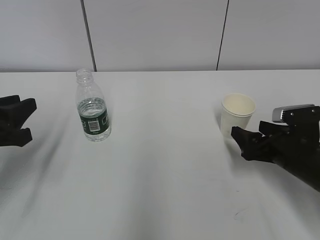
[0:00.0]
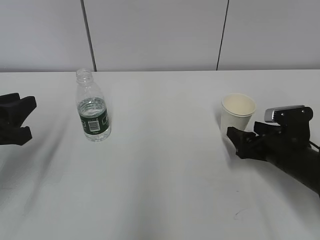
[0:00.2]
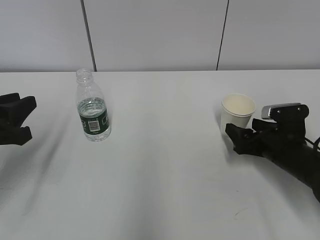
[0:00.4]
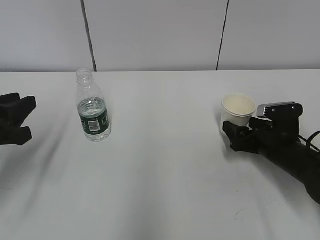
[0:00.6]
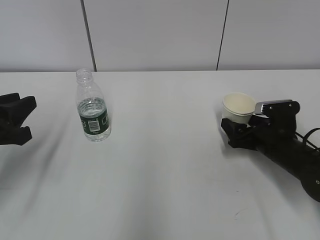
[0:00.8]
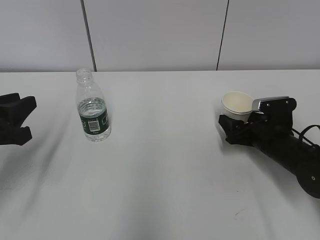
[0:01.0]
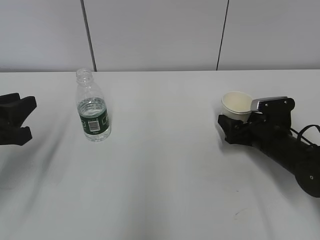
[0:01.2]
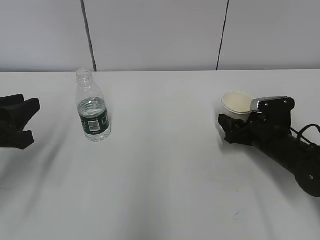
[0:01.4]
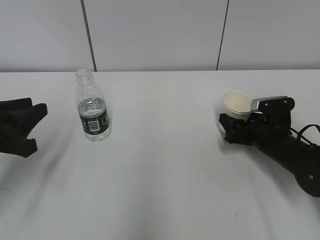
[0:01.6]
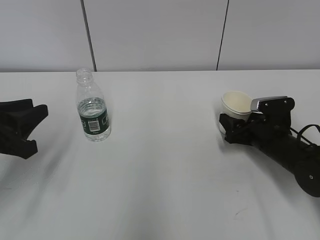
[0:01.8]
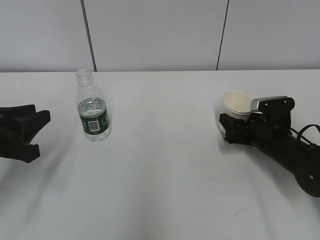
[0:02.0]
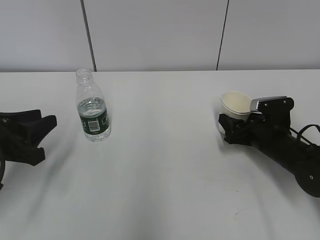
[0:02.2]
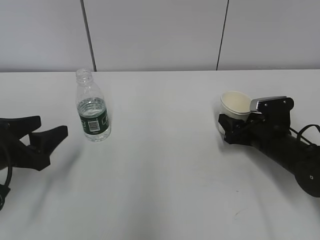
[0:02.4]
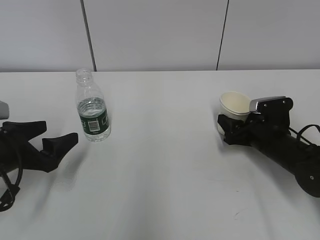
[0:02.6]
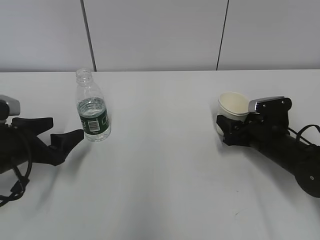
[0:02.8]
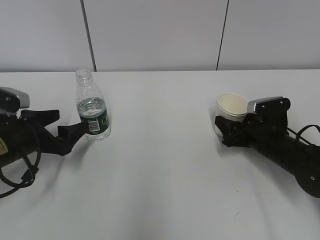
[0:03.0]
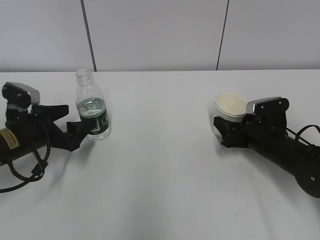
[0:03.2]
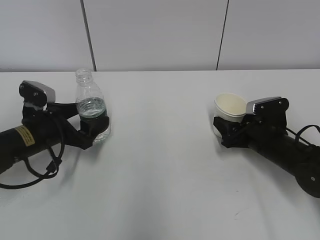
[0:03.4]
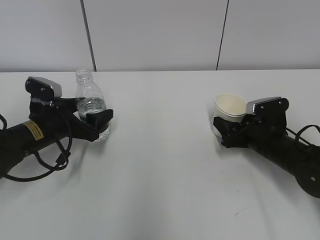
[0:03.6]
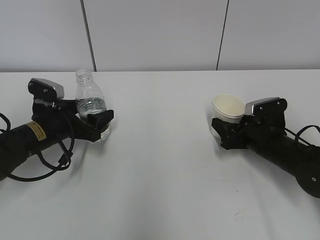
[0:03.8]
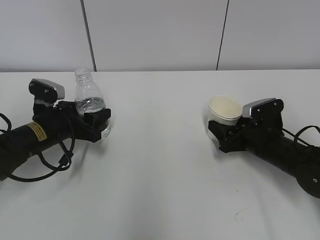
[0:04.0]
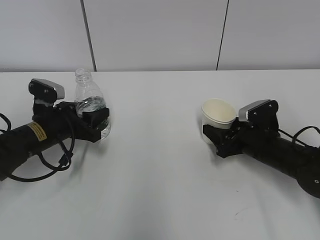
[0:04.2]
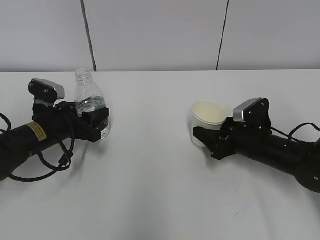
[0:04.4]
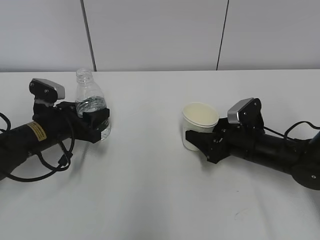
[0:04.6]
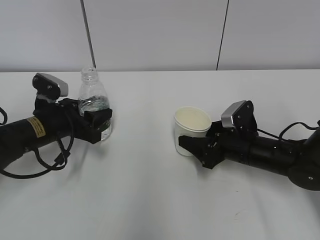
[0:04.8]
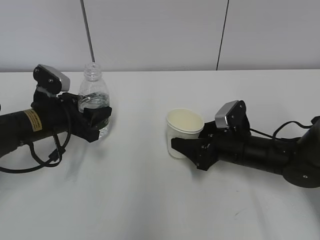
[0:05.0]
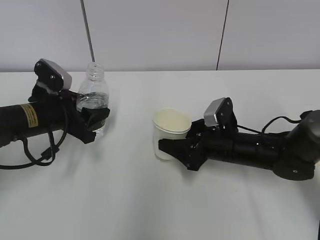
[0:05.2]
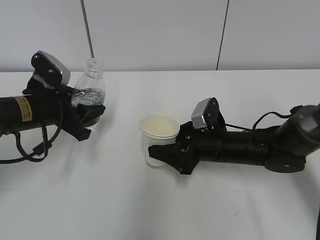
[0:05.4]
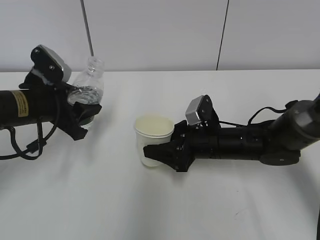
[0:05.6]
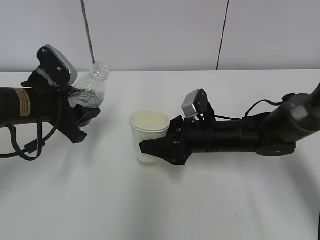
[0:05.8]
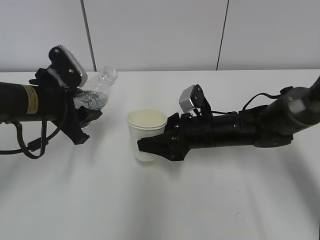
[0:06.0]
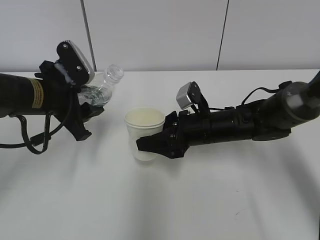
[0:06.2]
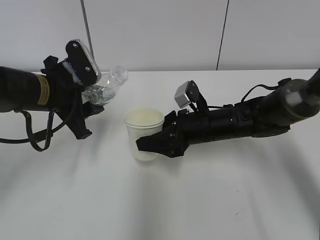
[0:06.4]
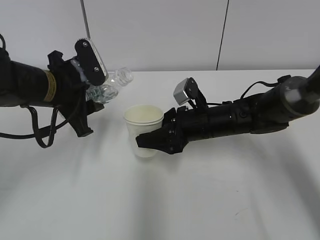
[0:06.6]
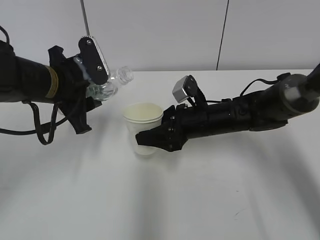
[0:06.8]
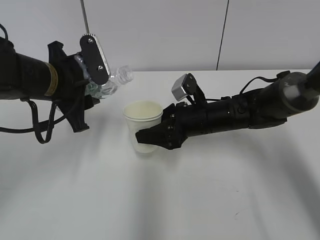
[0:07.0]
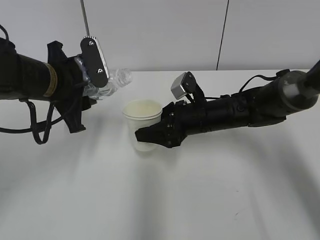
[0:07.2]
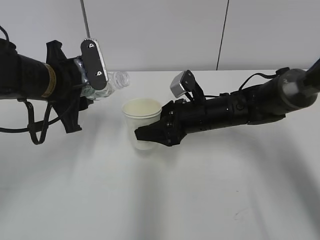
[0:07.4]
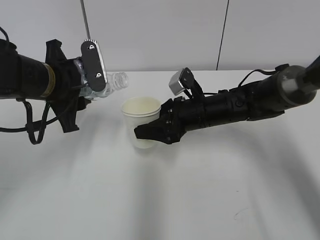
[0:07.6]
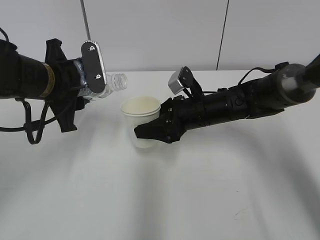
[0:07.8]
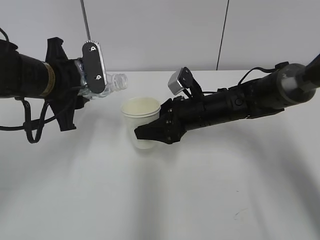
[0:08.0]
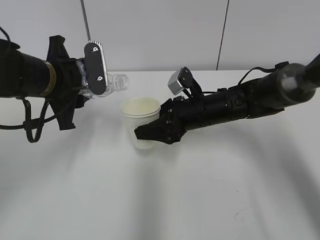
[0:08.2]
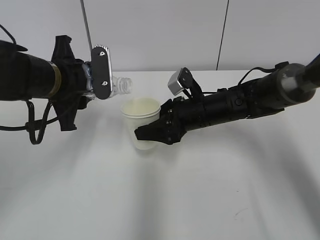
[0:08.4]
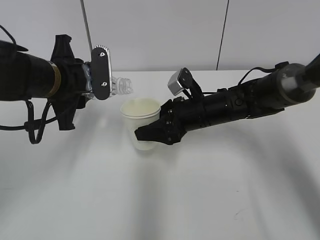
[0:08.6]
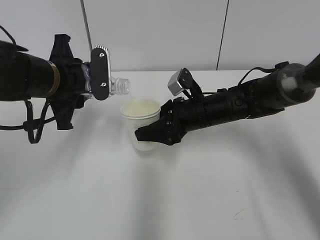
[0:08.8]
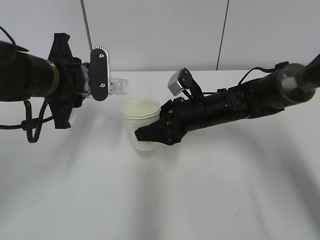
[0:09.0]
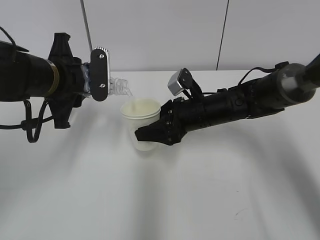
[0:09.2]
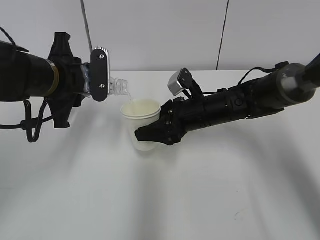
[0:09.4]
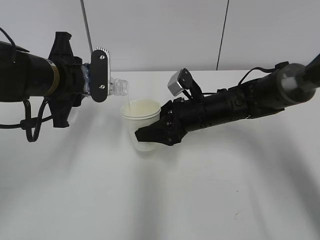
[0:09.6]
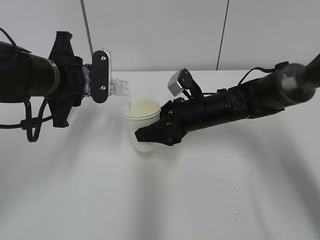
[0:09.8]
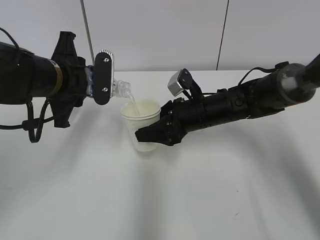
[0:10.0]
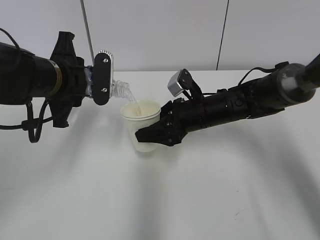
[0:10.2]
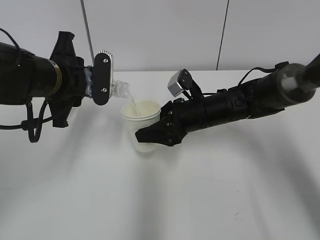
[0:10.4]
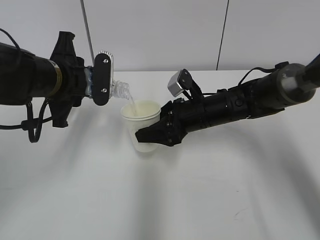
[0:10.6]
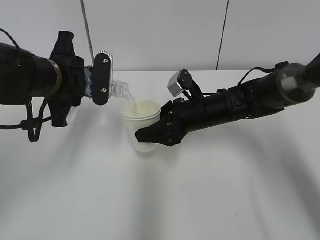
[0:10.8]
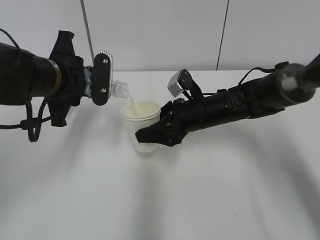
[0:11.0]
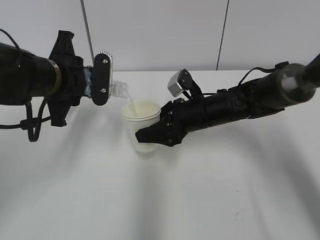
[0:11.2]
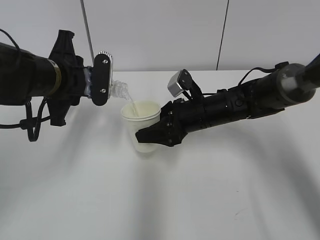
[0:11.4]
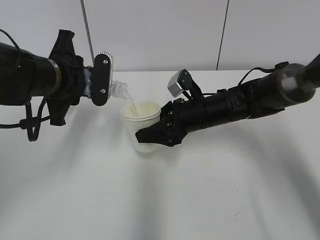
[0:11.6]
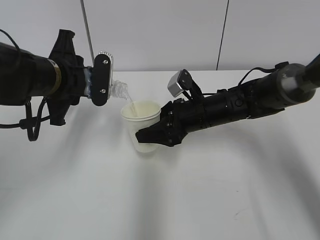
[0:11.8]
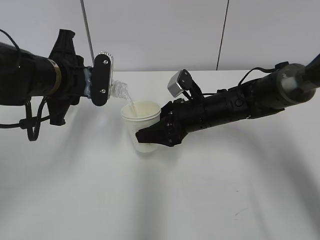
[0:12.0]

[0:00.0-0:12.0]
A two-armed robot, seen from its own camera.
Step, 0:00.6 to 0:02.6: Grab the water bottle with the left hand.
Step, 0:02.8 to 0:06.2: Lift the paper cup with the right hand.
Step, 0:06.4 to 0:10.6: Fill water with the right hand.
Step, 0:06.4 to 0:10.6: Pour water with the left hand.
0:00.0 to 0:01.6: The right gripper goes some 5 cm forward, and closes up.
0:01.6 to 0:03.0: The left gripper heads forward and downward, covering roughly 10 cm, and opens up.
0:03.0 to 0:04.4: The left gripper ends up approximately 5 cm from where it was, and closes up.
0:04.4 to 0:06.0: The left gripper travels upward by some 10 cm. The right gripper is displaced to the left by some 10 cm.
0:07.6 to 0:10.4: The grippers stay close to where they were, moving slightly.
0:10.4 to 0:12.0: Both grippers stay about where they are.

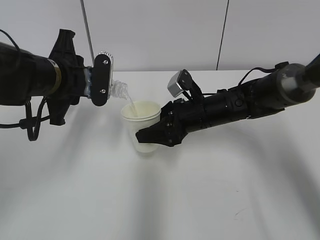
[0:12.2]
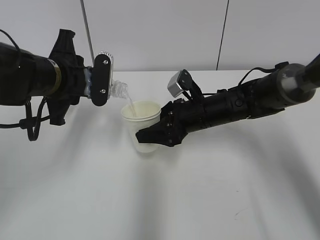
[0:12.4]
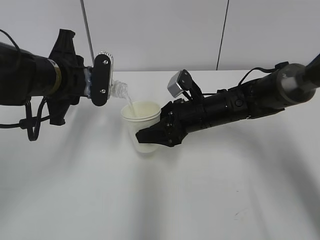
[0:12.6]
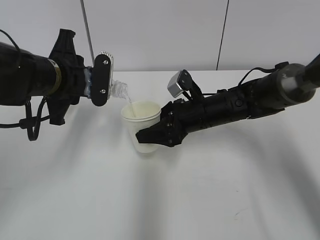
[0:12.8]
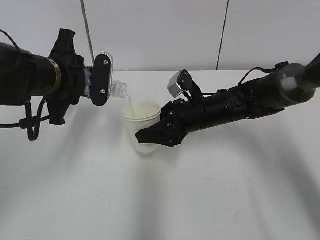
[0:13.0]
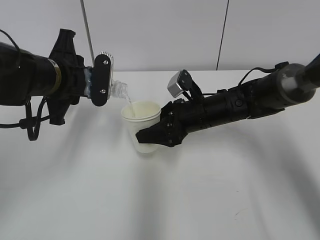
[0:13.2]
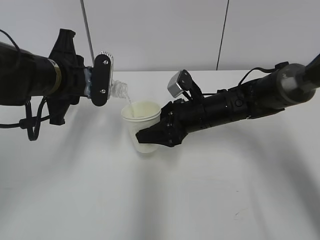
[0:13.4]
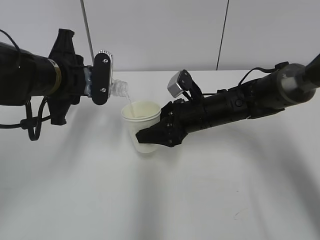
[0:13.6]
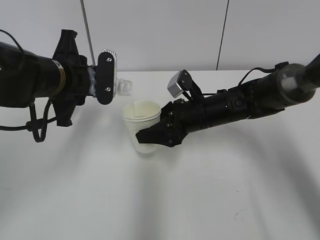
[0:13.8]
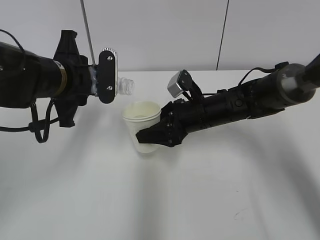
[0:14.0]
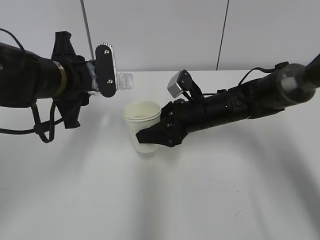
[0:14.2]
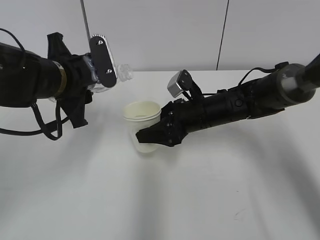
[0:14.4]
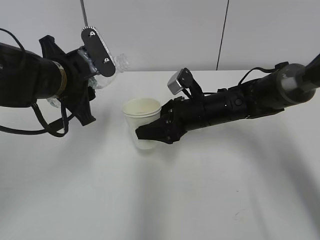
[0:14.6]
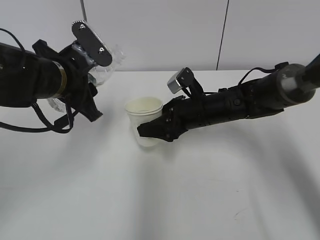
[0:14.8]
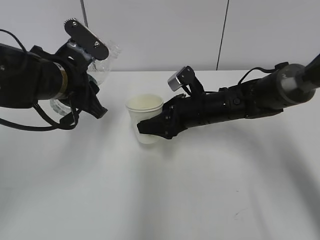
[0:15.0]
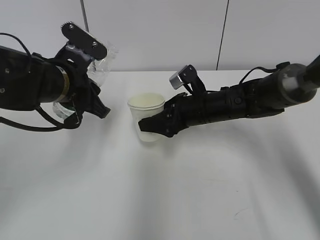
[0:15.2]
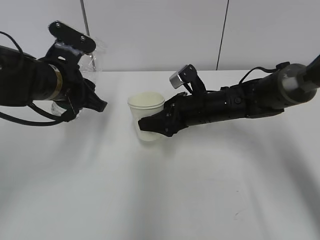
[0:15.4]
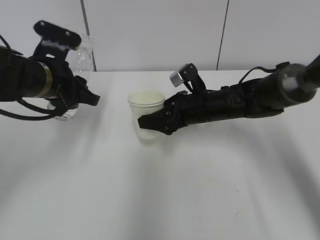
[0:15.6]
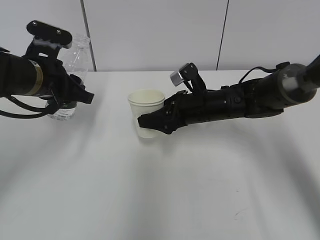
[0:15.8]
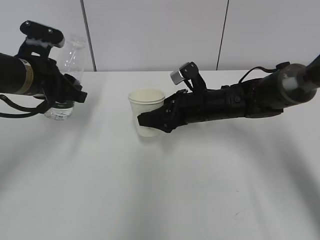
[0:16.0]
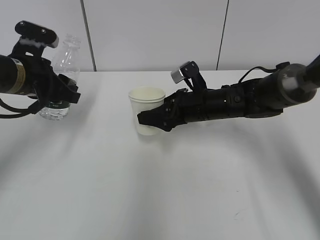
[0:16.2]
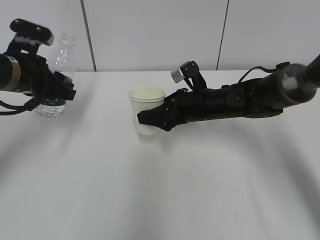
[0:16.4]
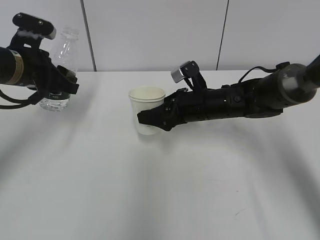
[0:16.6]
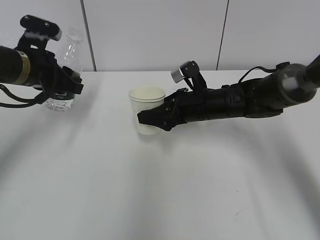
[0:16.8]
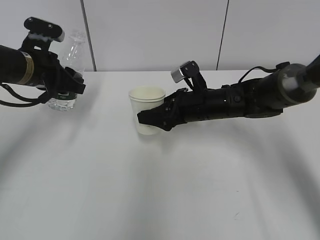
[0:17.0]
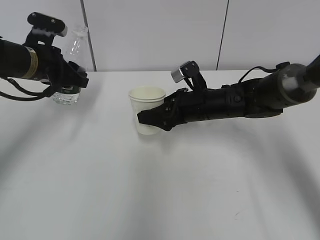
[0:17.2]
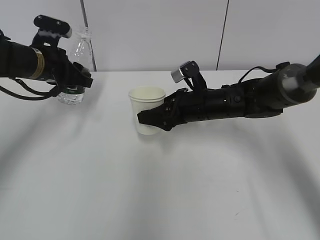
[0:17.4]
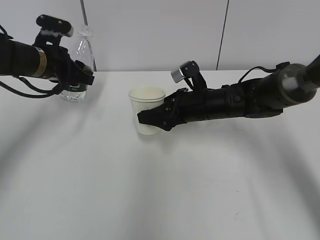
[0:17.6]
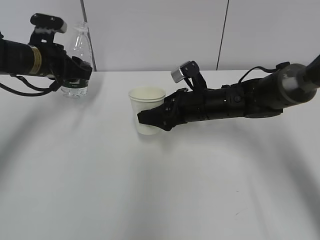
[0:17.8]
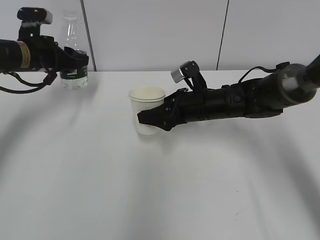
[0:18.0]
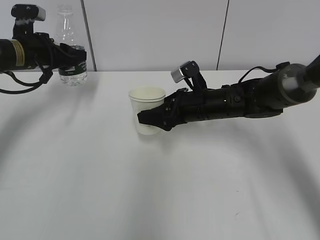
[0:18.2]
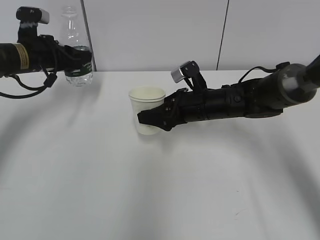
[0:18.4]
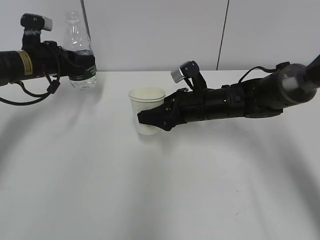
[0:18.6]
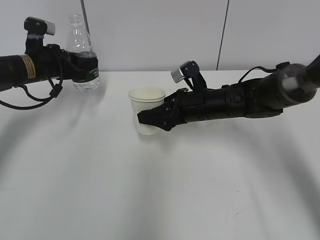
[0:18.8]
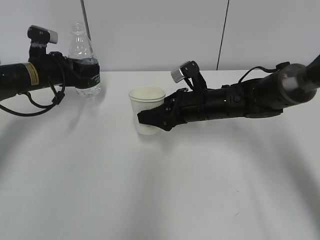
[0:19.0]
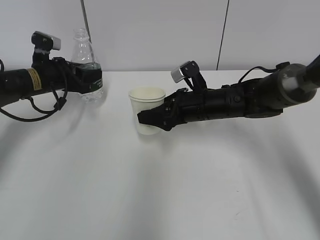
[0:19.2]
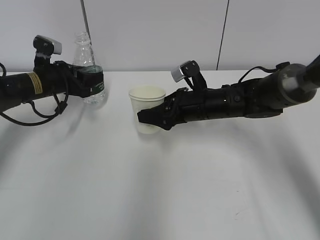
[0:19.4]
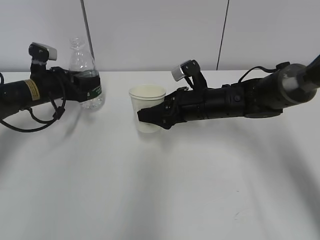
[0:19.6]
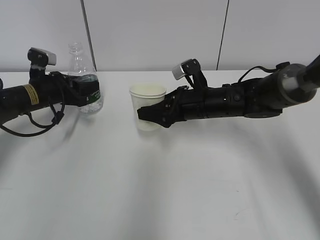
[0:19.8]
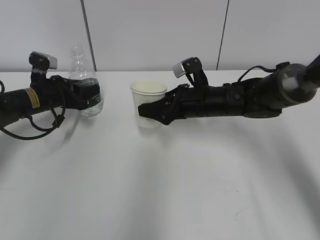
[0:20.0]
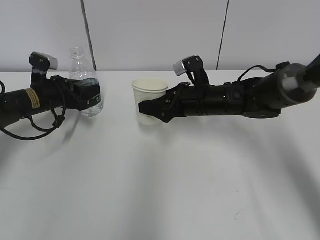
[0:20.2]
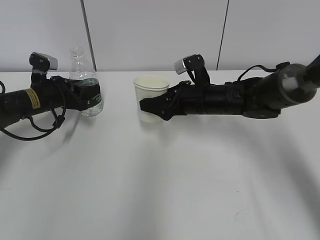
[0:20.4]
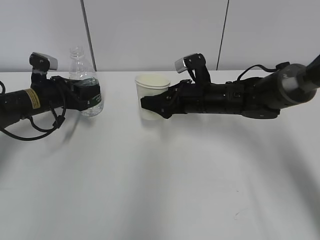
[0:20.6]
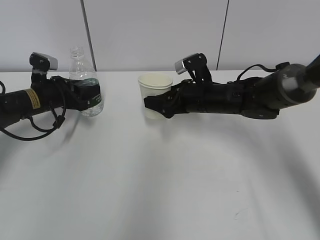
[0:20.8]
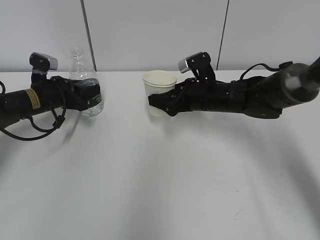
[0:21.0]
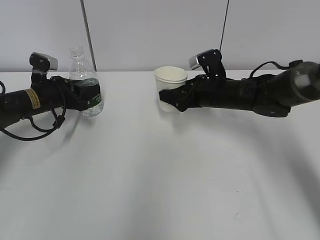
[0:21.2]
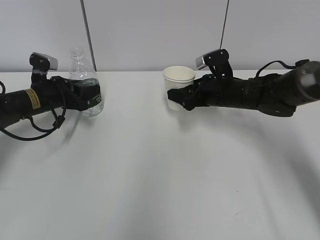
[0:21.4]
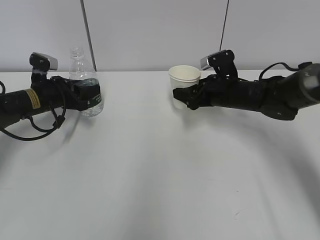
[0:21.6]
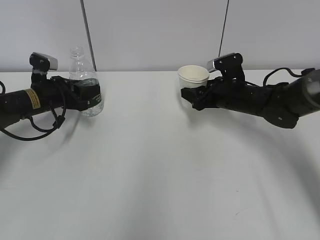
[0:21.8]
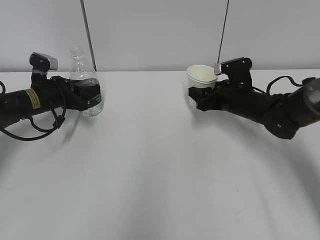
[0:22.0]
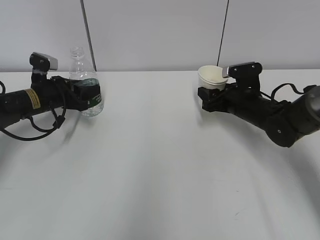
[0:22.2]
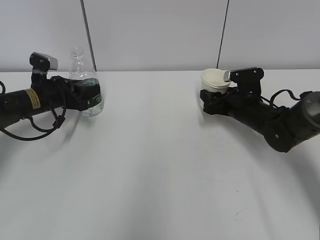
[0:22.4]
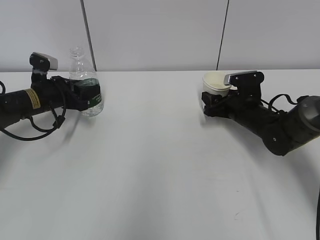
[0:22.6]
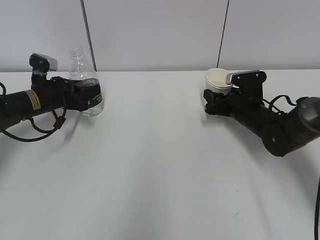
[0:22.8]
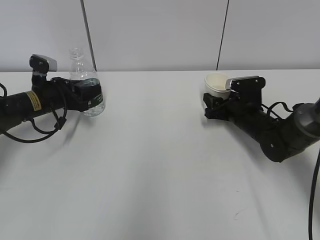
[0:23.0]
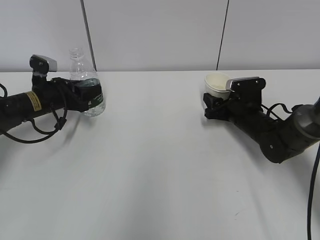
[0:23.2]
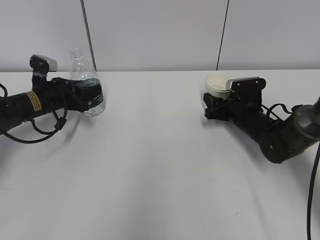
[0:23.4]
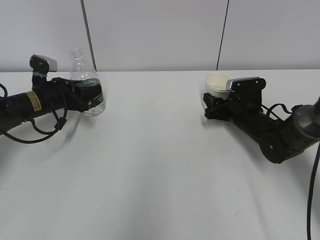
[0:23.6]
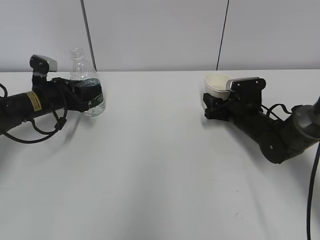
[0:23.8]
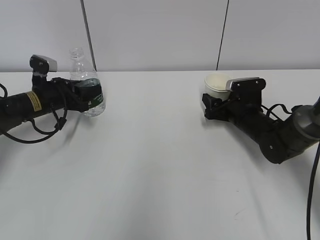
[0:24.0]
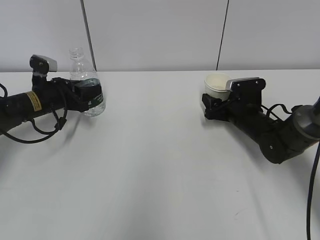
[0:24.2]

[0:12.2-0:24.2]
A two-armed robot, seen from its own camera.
Step, 0:12.2 to 0:23.8: Place the paper cup with the right hand.
0:12.2 to 0:13.8: Both grippers stay about where they are.
0:15.2 to 0:16.6: The left gripper goes roughly 10 cm to the left.
0:16.6 to 0:18.2: The left gripper goes roughly 5 cm forward.
0:18.2 to 0:19.8: The left gripper shifts approximately 10 cm downward.
0:19.8 to 0:21.2: The grippers move only a little.
0:21.2 to 0:22.6: The right gripper is displaced to the right and downward by approximately 10 cm.
0:22.6 to 0:24.2: The right gripper opens its fingers.
